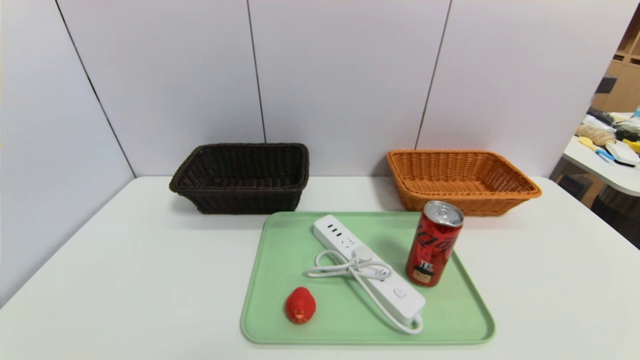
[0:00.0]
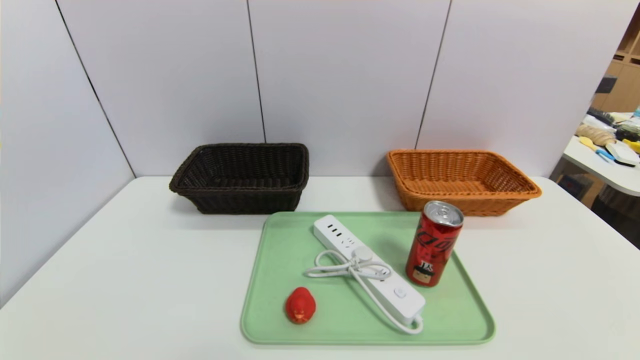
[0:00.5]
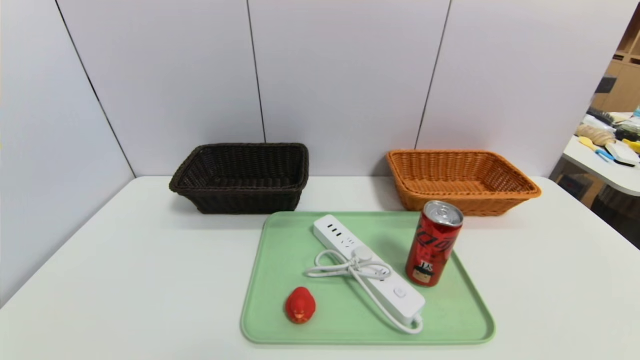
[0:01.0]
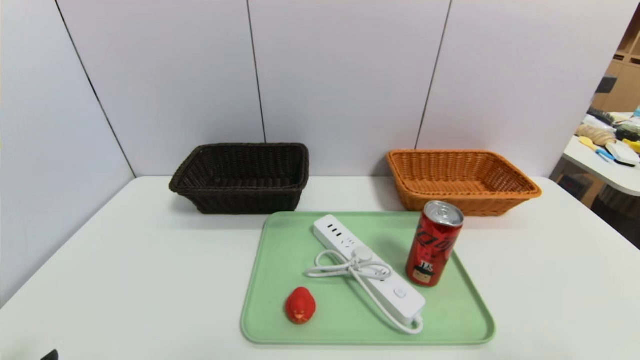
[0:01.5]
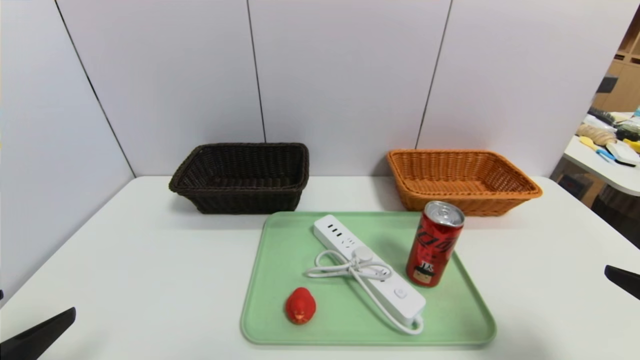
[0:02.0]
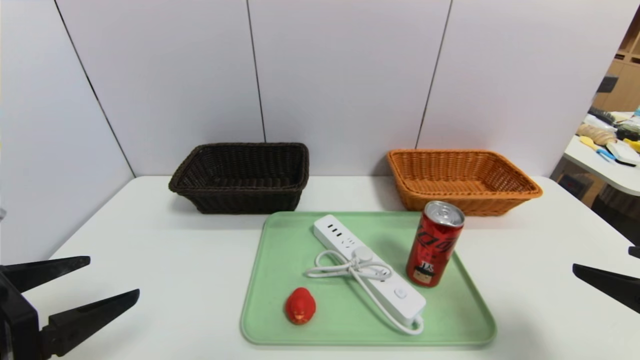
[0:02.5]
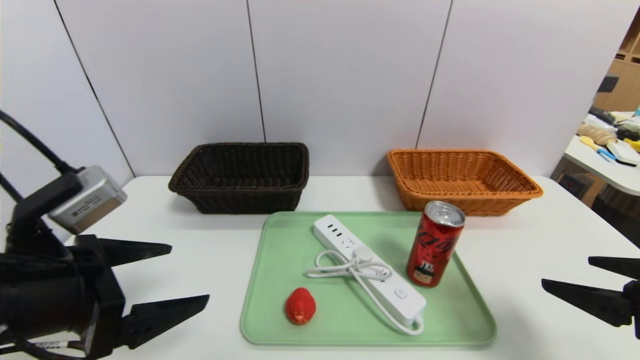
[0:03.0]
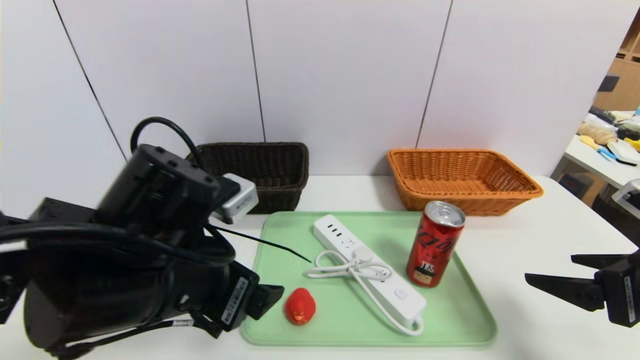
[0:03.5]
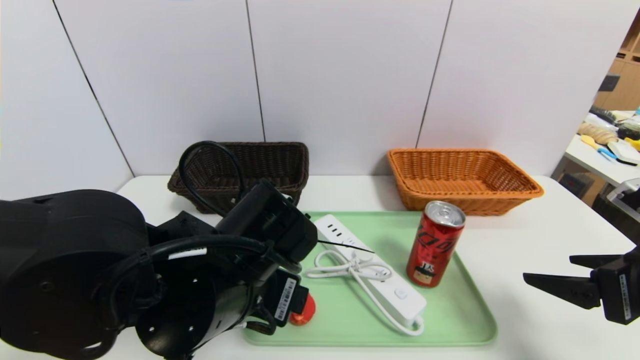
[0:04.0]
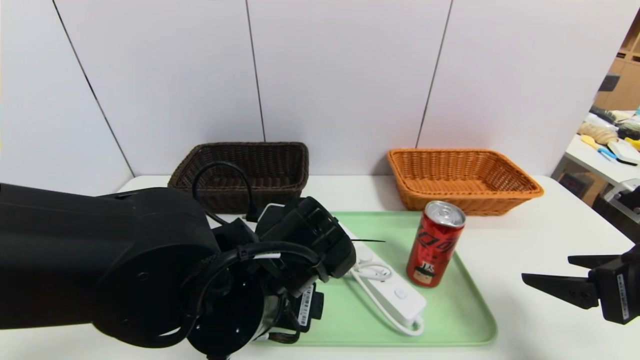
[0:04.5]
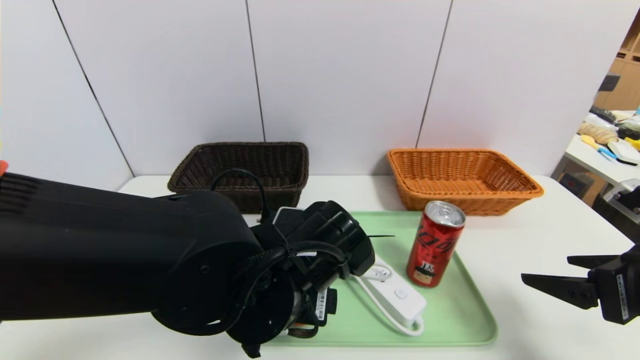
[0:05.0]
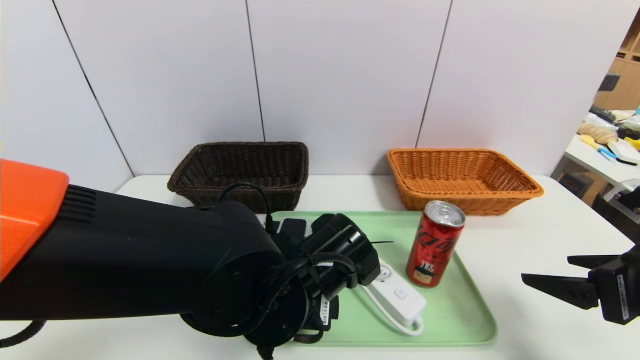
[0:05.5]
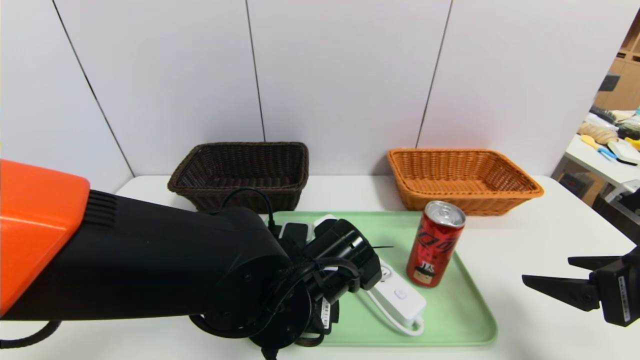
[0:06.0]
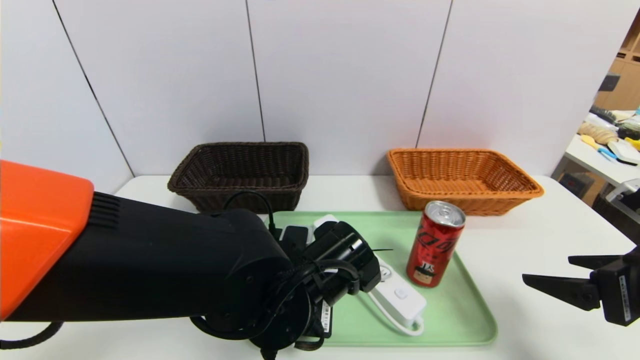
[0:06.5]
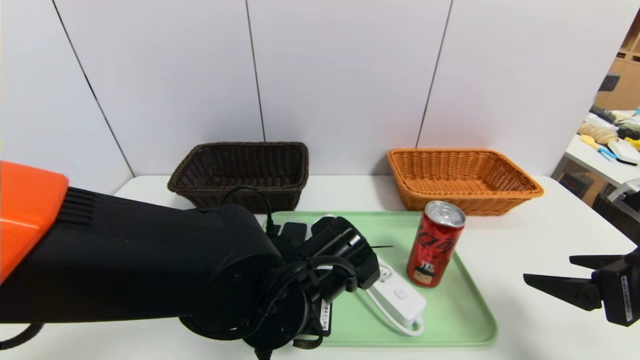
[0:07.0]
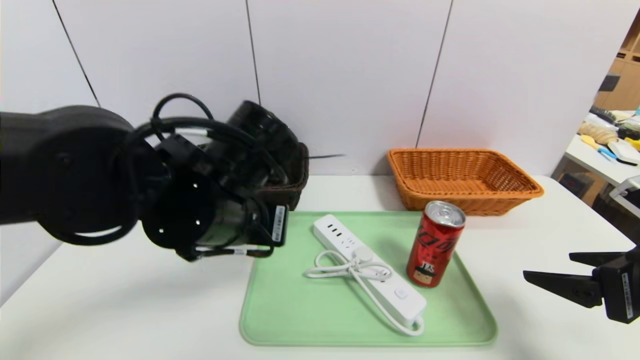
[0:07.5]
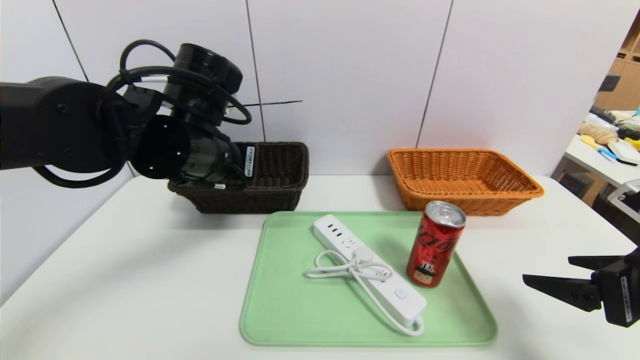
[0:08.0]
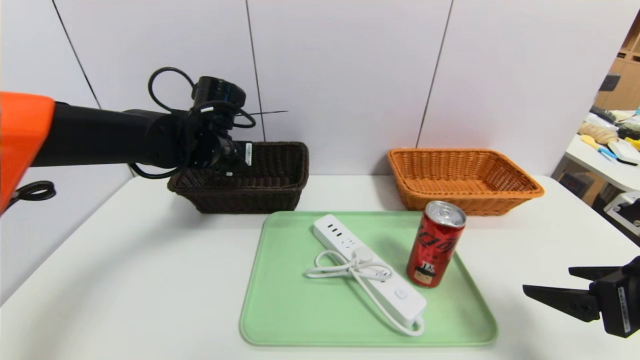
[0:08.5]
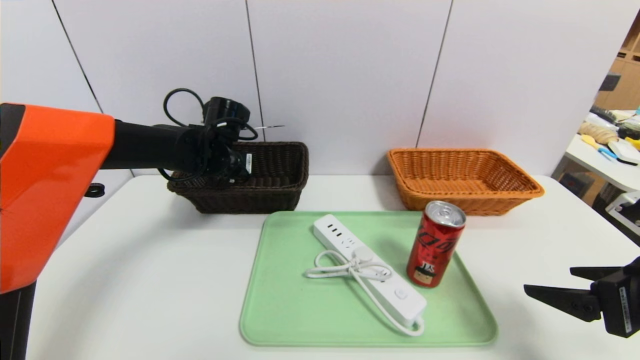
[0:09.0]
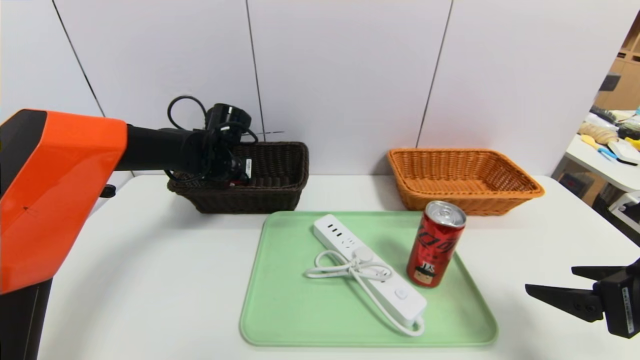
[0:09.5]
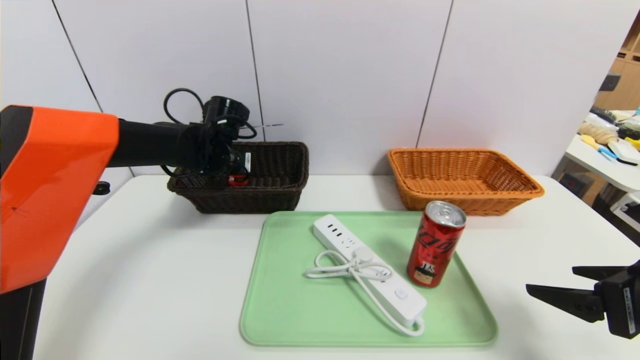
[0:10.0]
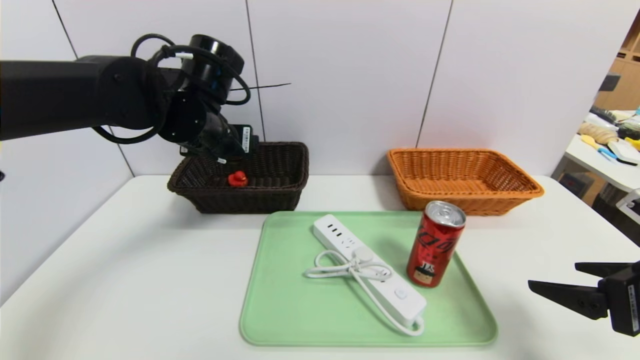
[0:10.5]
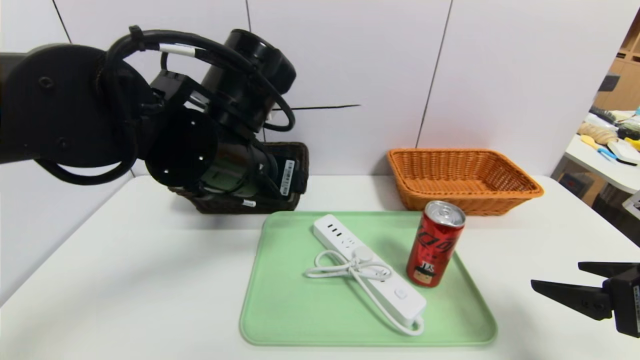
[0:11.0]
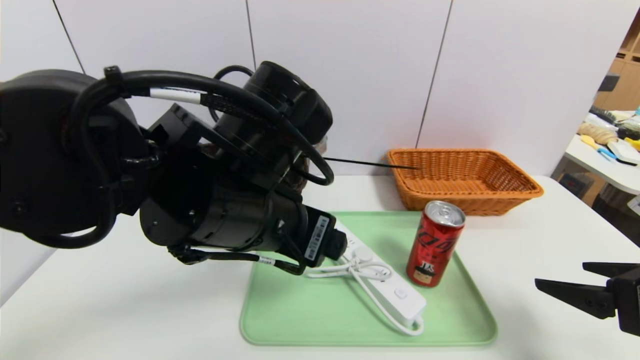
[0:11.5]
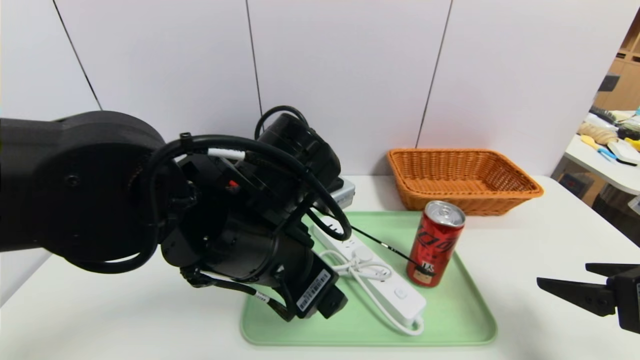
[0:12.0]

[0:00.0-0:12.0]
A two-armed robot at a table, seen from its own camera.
Task of the whole recording: place the food in the right basket with the right gripper, and place the non food items in the left basket with the left gripper.
Step, 0:00.0 to 0:10.0: Grasp the red duck and put it in the left basket.
0:00.0 to 0:02.0: Both grippers move upward and forward, some 15 cm.
0:02.0 to 0:04.0: The left gripper heads to the right and forward, covering roughly 25 cm; the right gripper shifts roughly 10 cm forward.
0:04.0 to 0:06.0: The left gripper shifts approximately 5 cm to the right.
0:06.0 to 0:08.0: The left gripper shifts roughly 20 cm upward, to the left and forward, and closes its fingers.
0:08.0 to 0:10.0: The left gripper shifts about 15 cm forward and downward, and opens up.
0:10.0 to 0:12.0: The left gripper shifts about 25 cm backward and to the right.

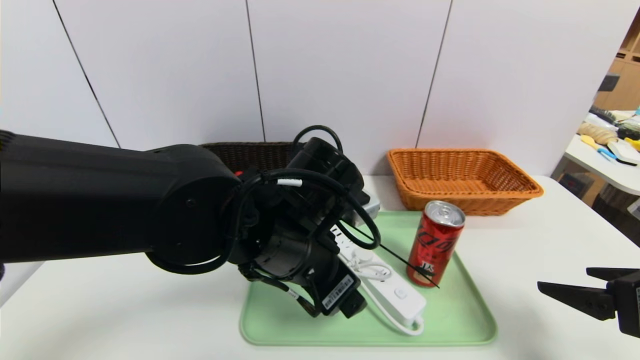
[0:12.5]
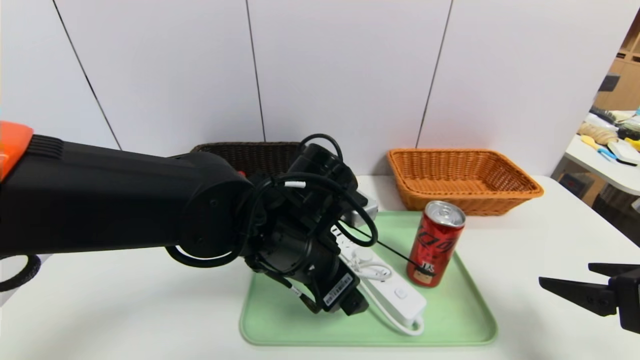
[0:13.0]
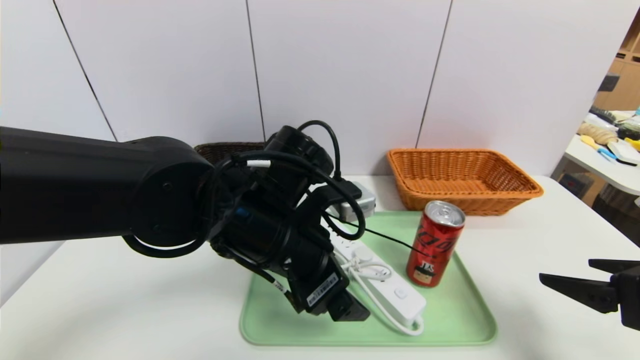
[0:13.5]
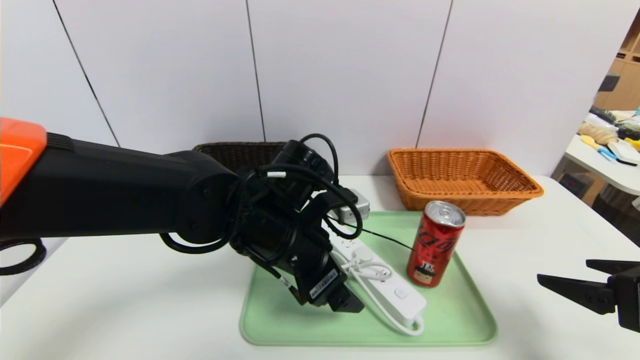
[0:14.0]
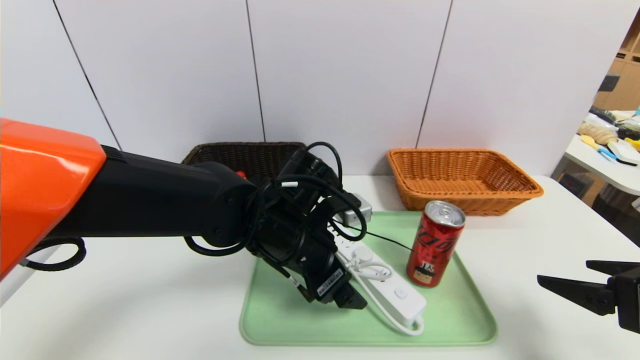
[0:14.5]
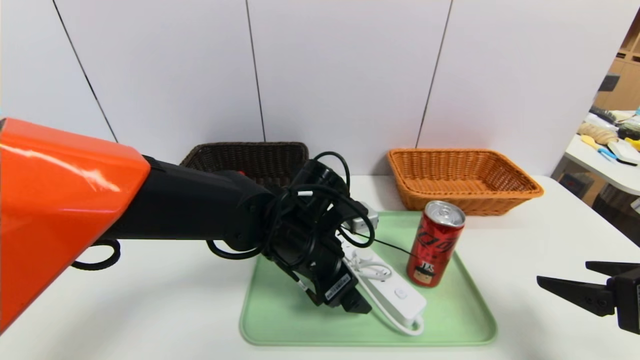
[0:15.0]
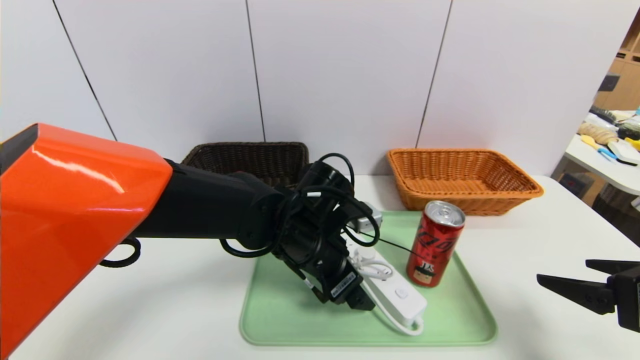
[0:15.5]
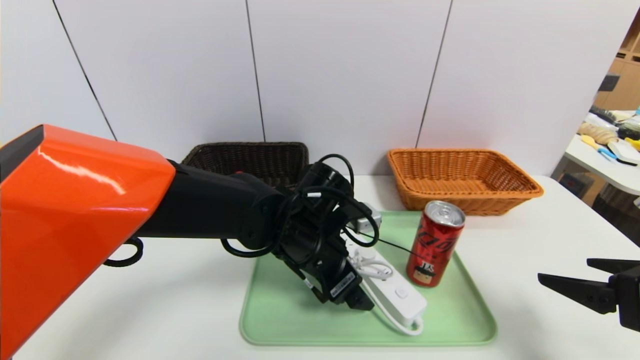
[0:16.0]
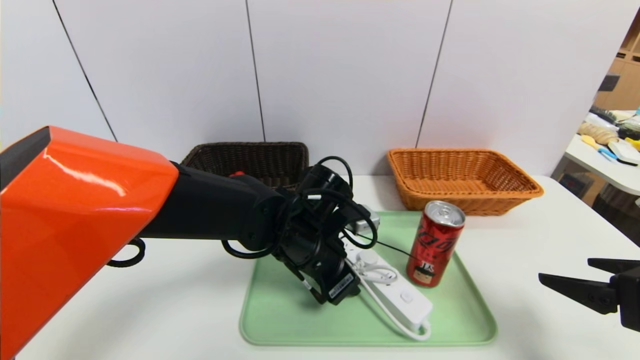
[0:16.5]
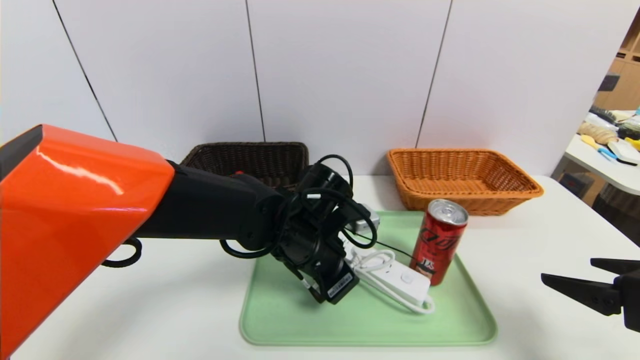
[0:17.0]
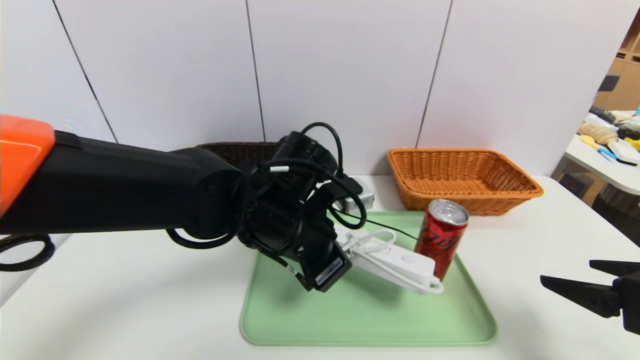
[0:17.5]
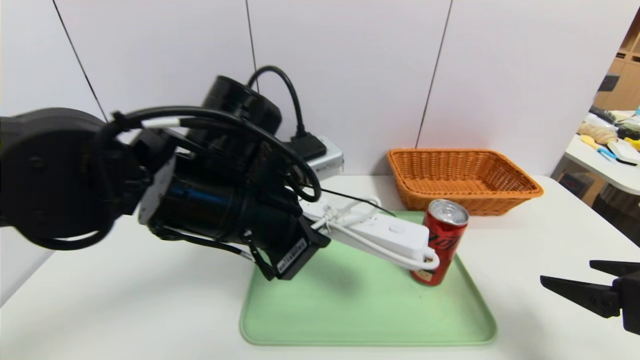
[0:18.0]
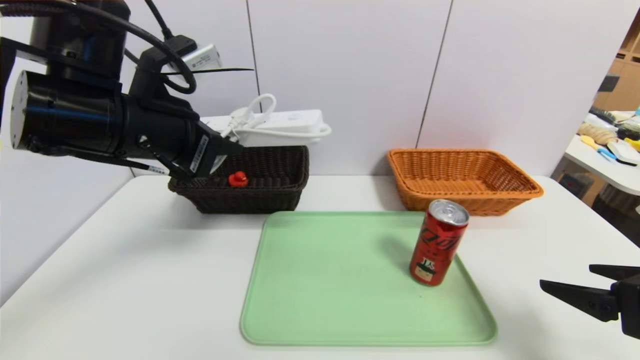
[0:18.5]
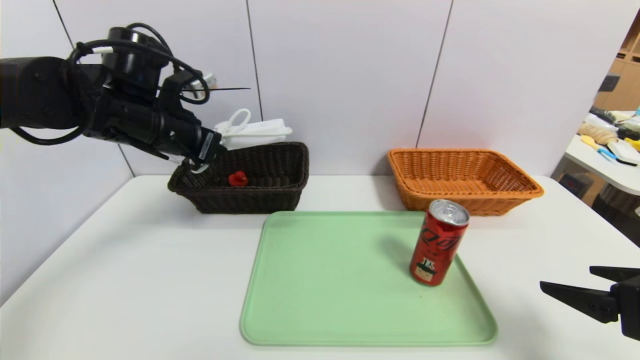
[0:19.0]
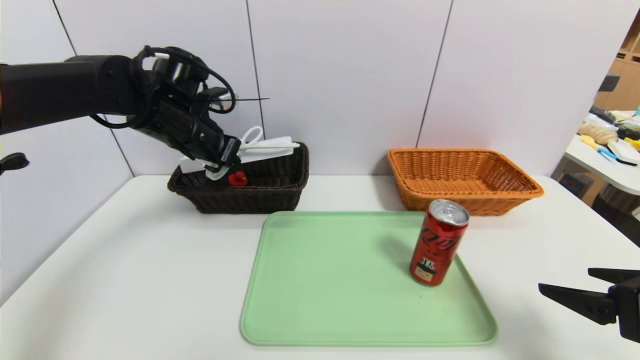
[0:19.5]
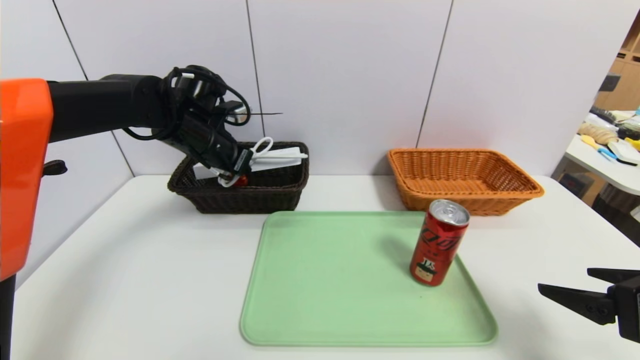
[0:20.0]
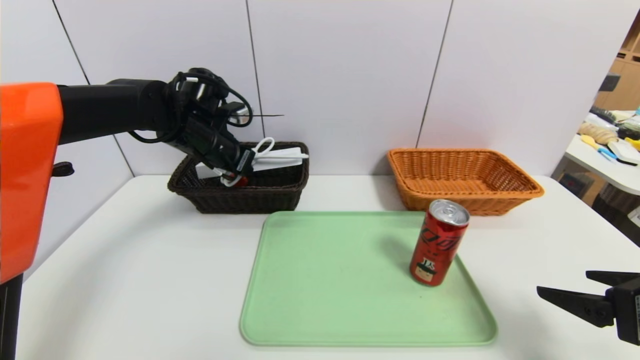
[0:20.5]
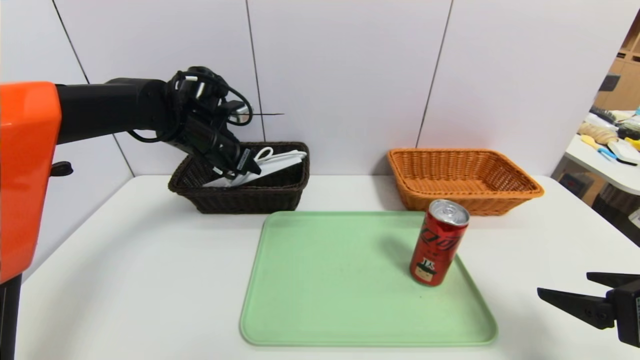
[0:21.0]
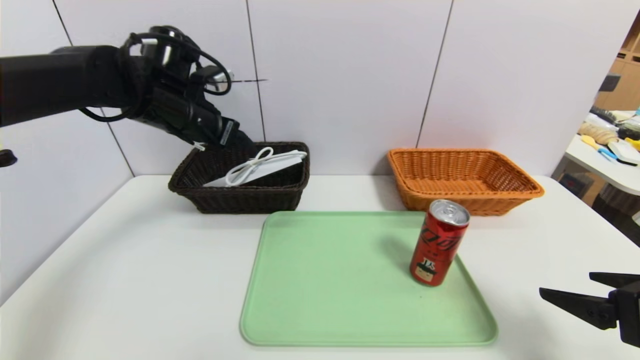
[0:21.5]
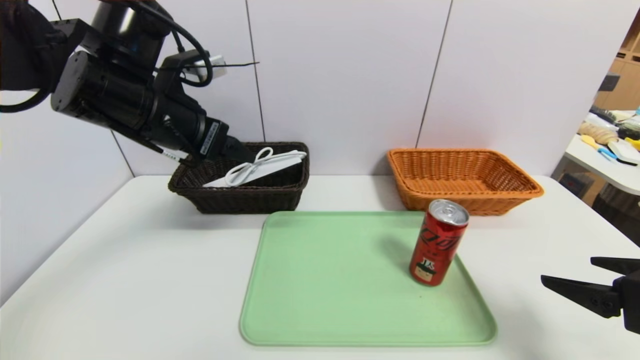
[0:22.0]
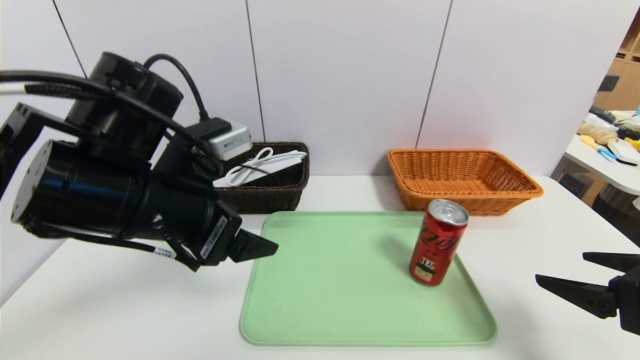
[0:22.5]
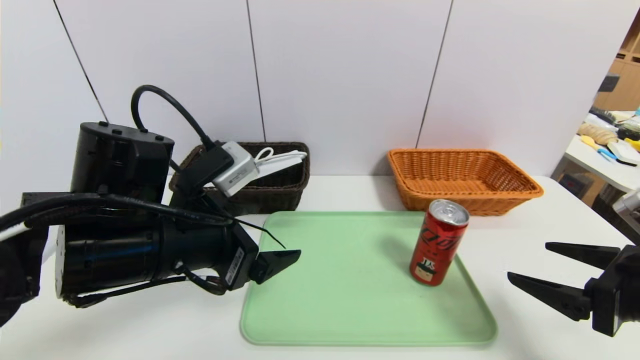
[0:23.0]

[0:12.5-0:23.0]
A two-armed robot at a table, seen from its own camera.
Task of the whole recording: place the food in the right basket with the right gripper, and place the non food items in the left basket with the left gripper.
Step, 0:12.5 to 0:21.0: Grasp the power strip and put it in the left basket.
0:12.5 to 0:14.5: The left gripper changes place by roughly 5 cm.
0:14.5 to 0:16.5: The left gripper closes.
0:16.5 to 0:19.0: The left gripper moves to the left and upward, about 25 cm.
0:19.0 to 0:21.0: The left gripper moves forward, some 5 cm, and opens up.
0:21.0 to 0:23.0: The left gripper is displaced backward by some 20 cm, and opens its fingers.
